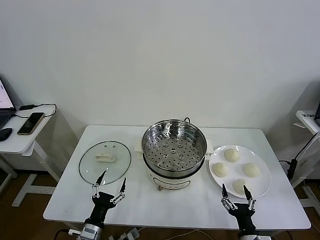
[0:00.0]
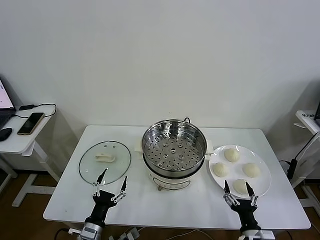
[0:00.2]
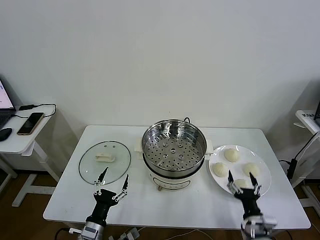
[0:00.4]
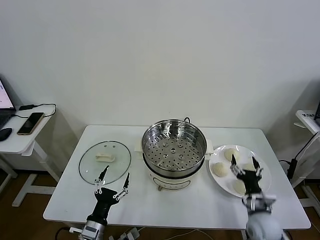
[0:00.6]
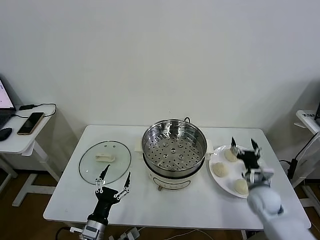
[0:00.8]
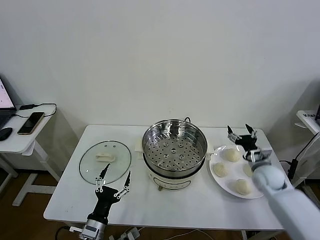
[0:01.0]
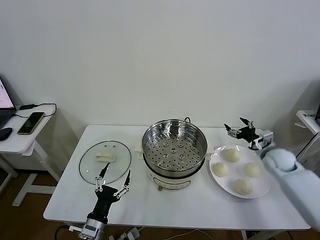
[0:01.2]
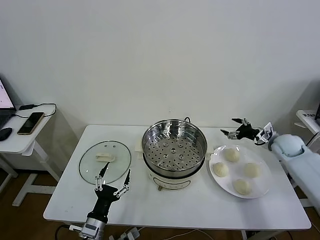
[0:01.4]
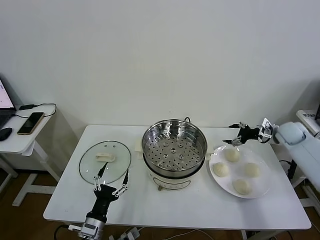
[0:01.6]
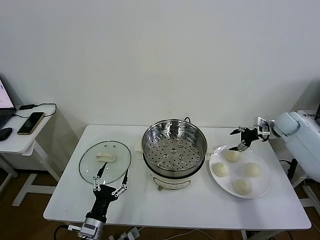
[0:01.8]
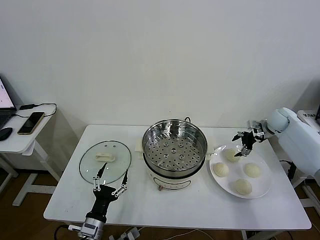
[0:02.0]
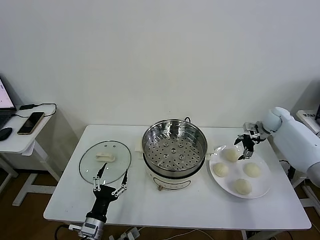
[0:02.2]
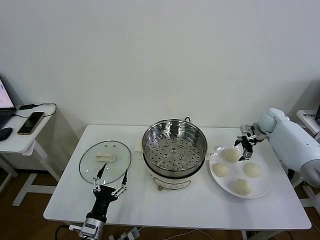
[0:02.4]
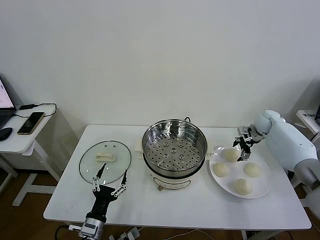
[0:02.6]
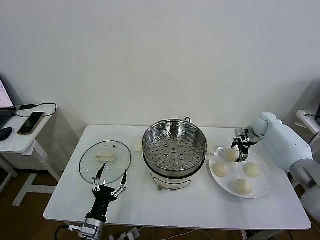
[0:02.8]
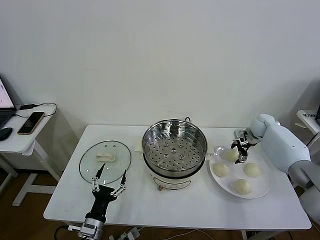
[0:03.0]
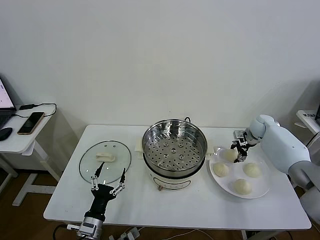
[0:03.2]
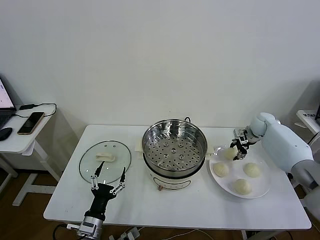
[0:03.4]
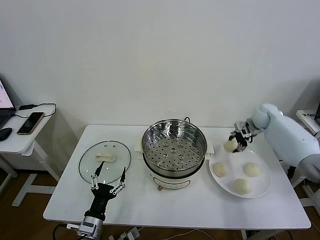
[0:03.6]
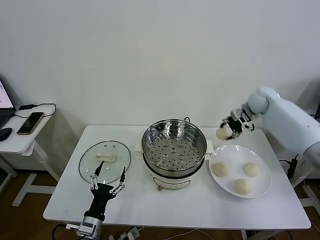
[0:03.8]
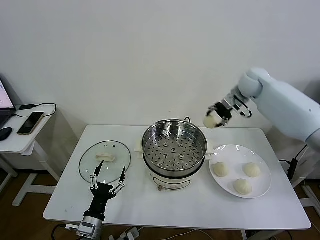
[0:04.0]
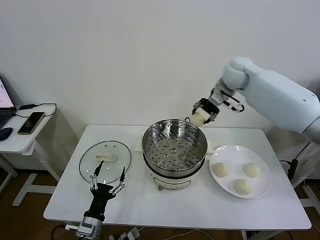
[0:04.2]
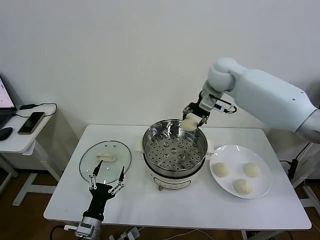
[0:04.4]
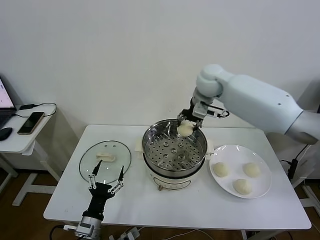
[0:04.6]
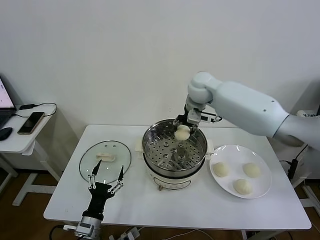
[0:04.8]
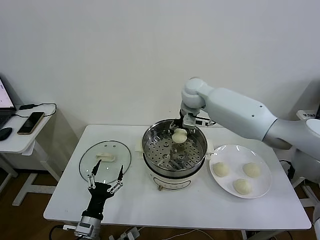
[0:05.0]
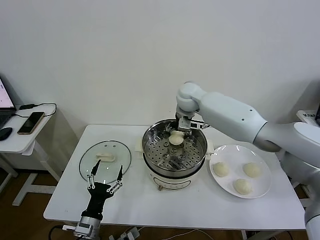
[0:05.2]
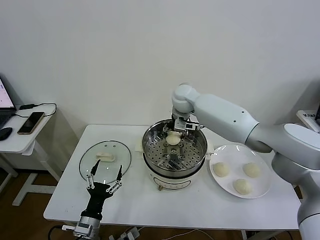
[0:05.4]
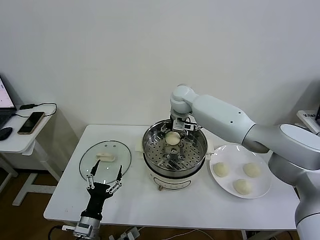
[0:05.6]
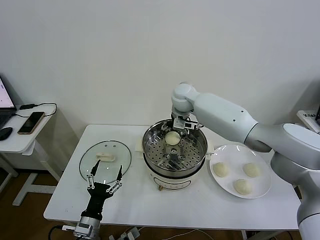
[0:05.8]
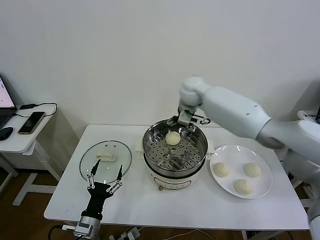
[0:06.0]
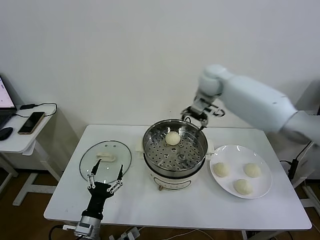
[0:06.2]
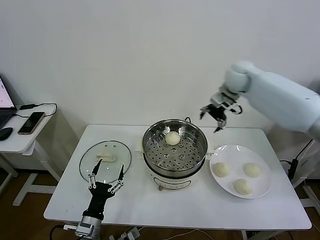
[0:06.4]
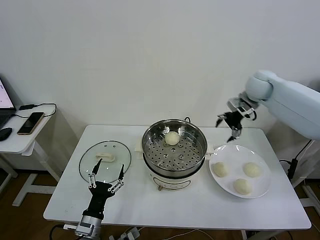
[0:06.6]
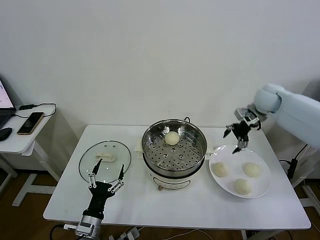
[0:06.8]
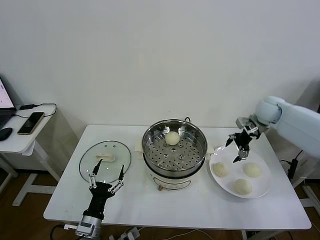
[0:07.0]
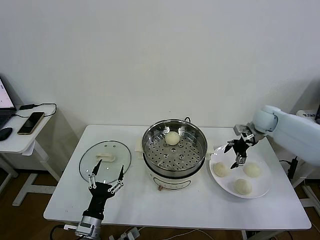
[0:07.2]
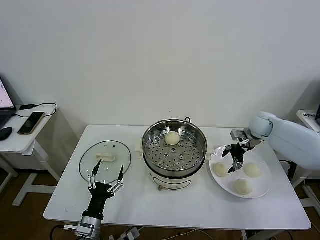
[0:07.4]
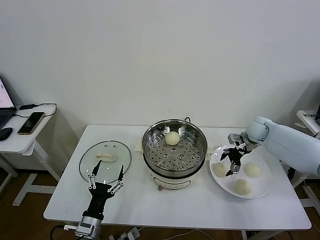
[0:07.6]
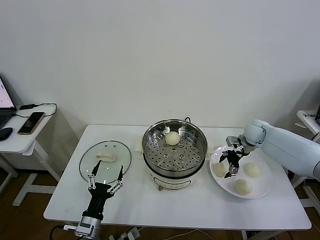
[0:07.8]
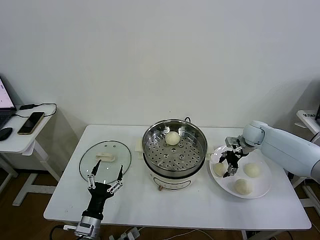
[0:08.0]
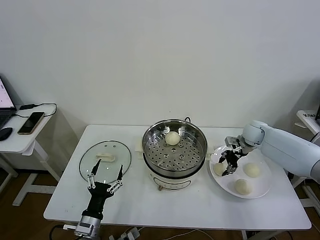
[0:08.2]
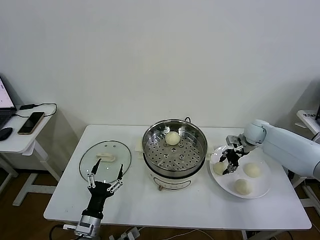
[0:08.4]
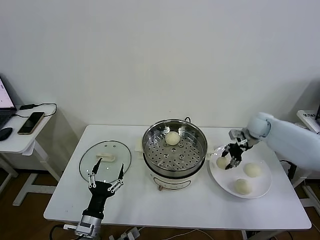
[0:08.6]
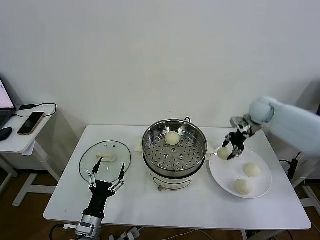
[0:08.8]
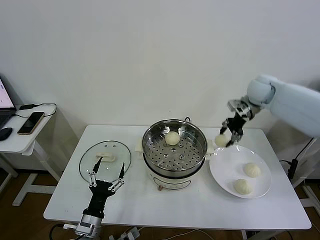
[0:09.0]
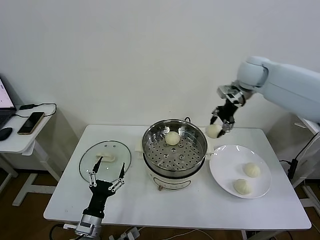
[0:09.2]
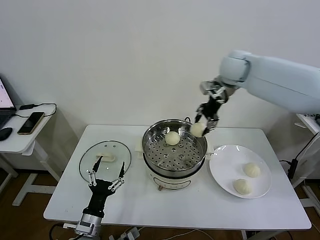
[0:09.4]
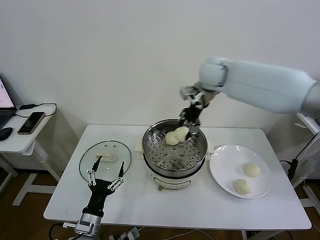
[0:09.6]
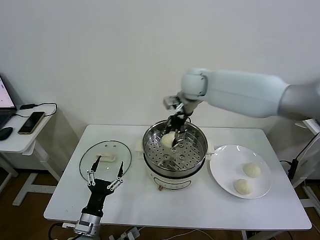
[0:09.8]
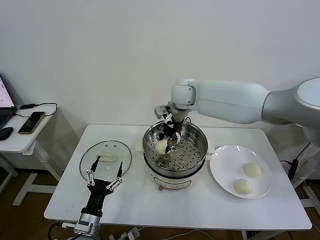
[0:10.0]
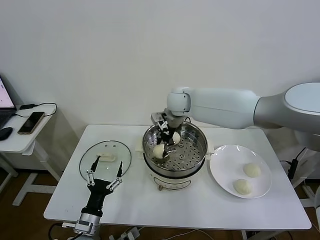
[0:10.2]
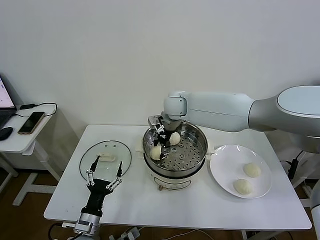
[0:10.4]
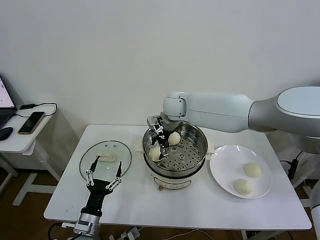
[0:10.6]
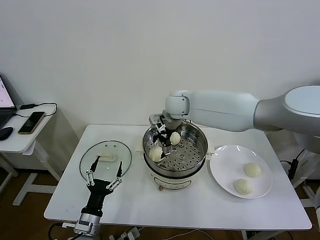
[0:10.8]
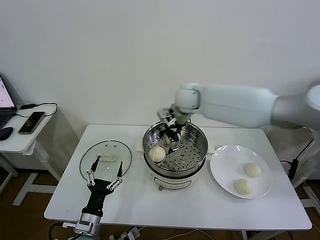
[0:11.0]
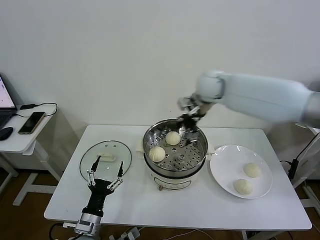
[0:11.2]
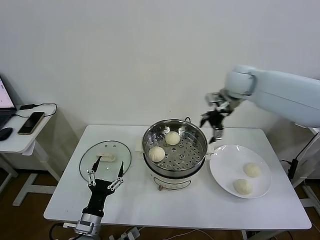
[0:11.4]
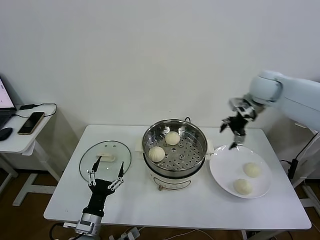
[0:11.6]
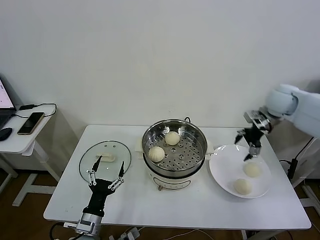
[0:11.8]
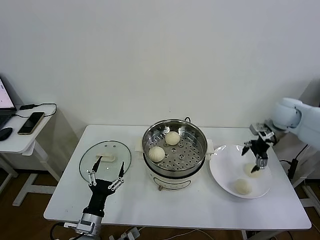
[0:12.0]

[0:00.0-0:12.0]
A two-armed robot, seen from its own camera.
Task of the whole recording: take steamed baozi put them in steamer then cover it.
Step, 0:00.0 to 0:03.2: Grasp the baozi in the plate with right gripper.
Step, 0:03.4 to 0:05.8: Place the baozi on the steamer with right gripper.
Step, 0:06.0 to 0:08.2: Grasp the baozi in the plate with right gripper.
Step, 0:08.4 to 0:10.6: Place the baozi on the steamer with right gripper.
0:01.6 to 0:03.0: The right gripper travels to the left, downward and forward by about 10 cm.
0:03.0 to 0:04.4: The right gripper shifts some 35 cm to the left and upward, and closes.
0:04.4 to 0:06.0: The right gripper opens its fingers.
0:06.0 to 0:07.6: The right gripper travels to the right and downward by some 30 cm.
0:07.6 to 0:09.0: The right gripper travels upward by about 20 cm, and closes its fingers.
0:09.0 to 0:10.4: The right gripper moves to the left, roughly 25 cm.
0:10.4 to 0:12.0: The right gripper travels to the right by some 35 cm, and opens its fingers.

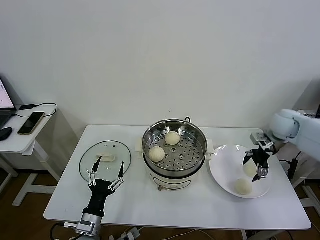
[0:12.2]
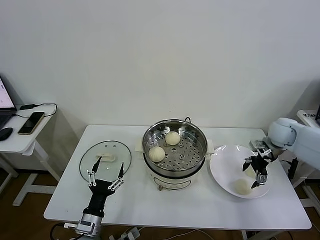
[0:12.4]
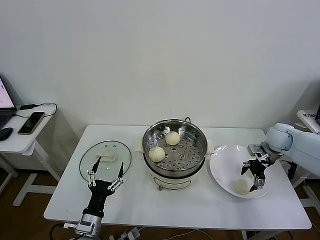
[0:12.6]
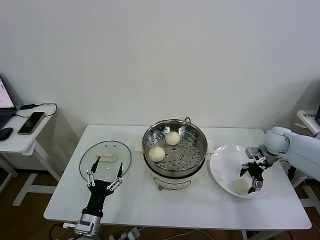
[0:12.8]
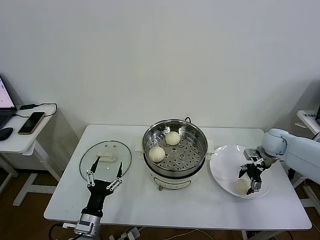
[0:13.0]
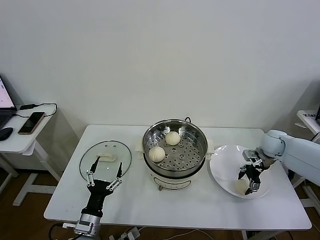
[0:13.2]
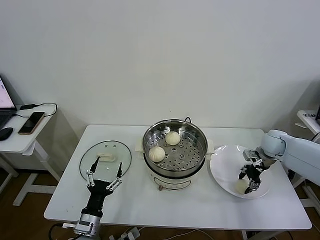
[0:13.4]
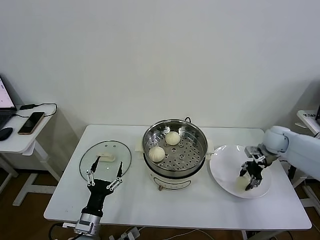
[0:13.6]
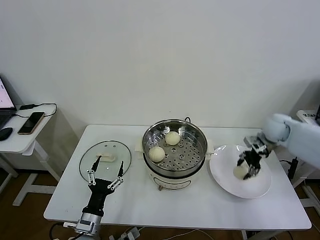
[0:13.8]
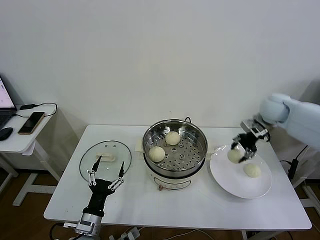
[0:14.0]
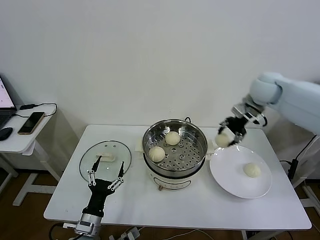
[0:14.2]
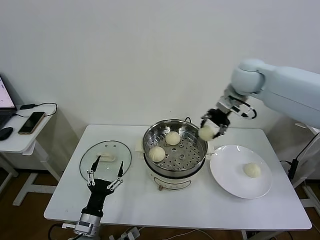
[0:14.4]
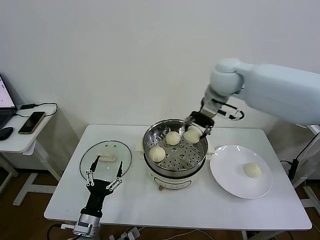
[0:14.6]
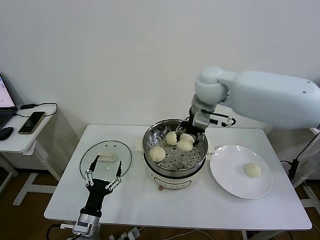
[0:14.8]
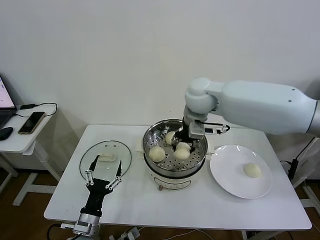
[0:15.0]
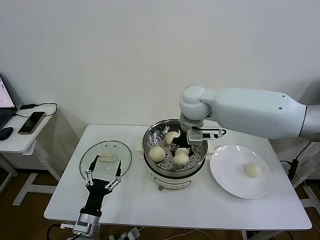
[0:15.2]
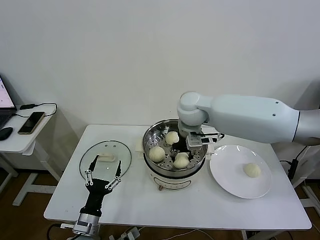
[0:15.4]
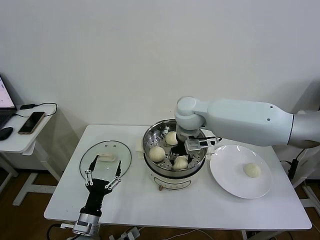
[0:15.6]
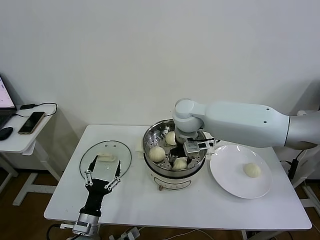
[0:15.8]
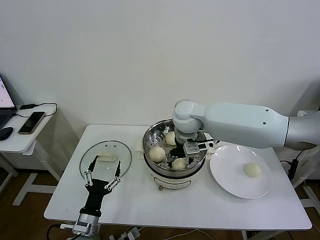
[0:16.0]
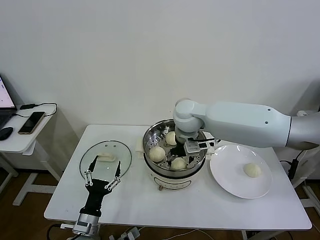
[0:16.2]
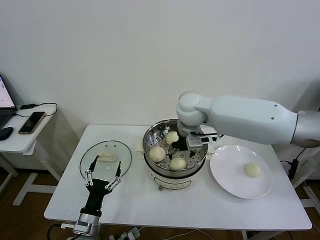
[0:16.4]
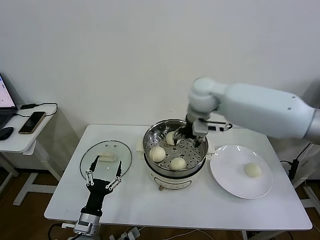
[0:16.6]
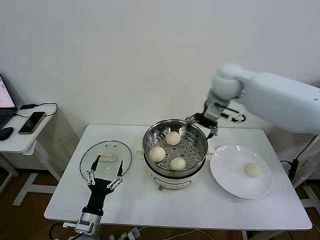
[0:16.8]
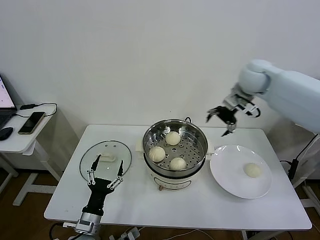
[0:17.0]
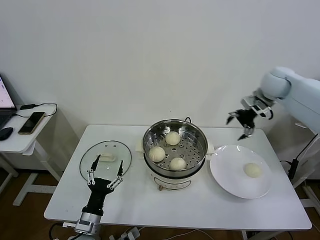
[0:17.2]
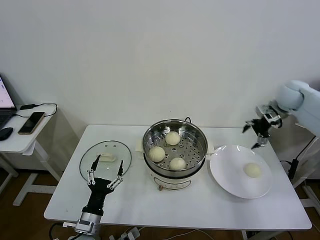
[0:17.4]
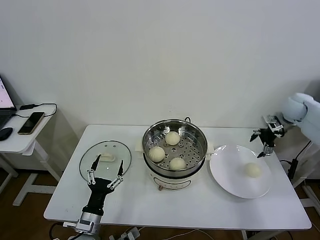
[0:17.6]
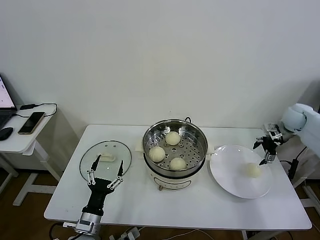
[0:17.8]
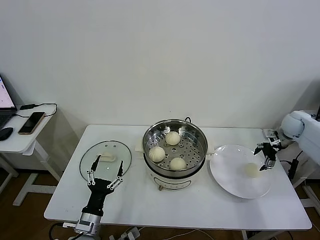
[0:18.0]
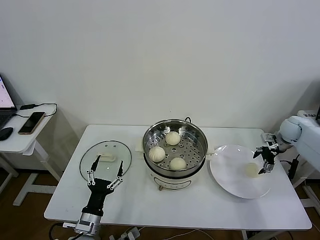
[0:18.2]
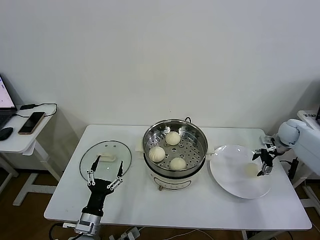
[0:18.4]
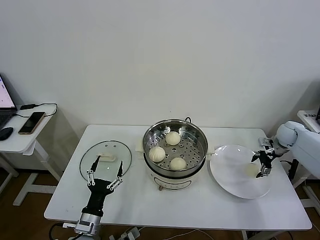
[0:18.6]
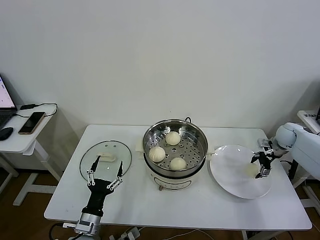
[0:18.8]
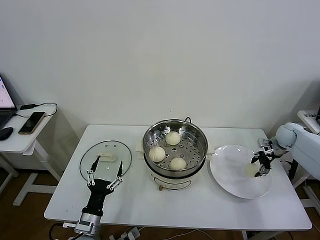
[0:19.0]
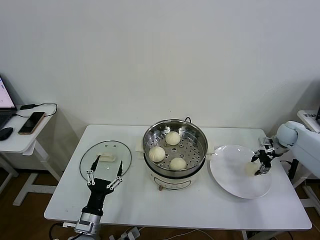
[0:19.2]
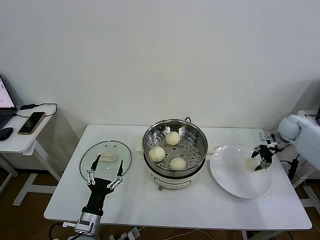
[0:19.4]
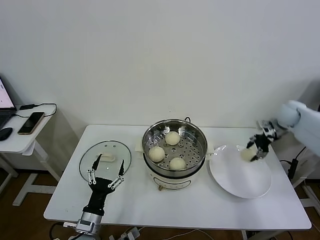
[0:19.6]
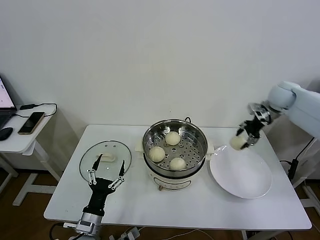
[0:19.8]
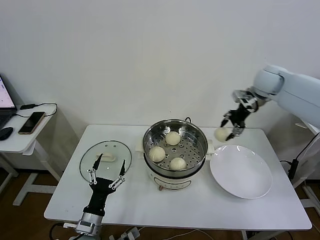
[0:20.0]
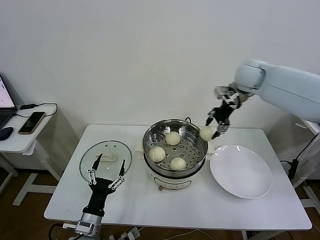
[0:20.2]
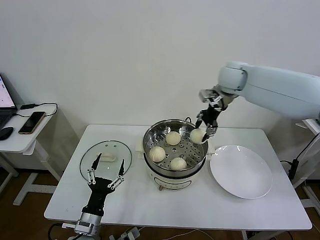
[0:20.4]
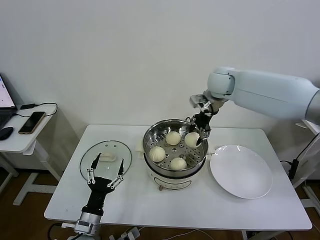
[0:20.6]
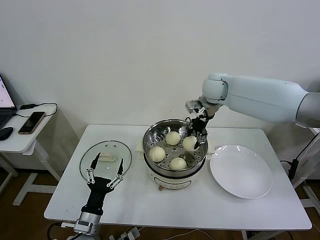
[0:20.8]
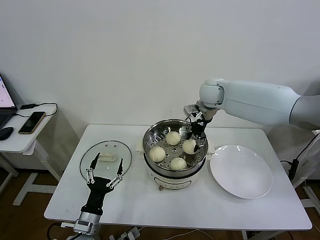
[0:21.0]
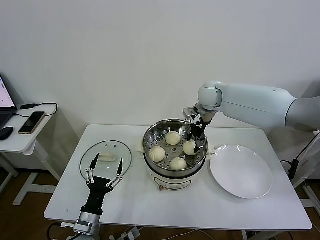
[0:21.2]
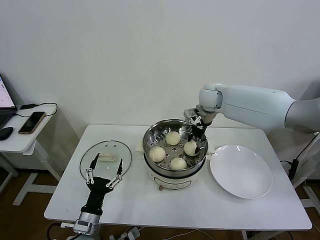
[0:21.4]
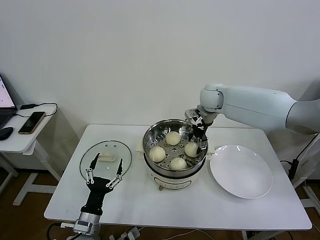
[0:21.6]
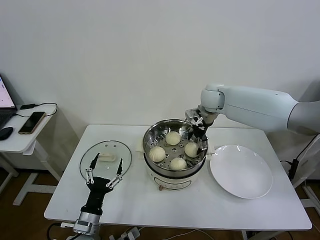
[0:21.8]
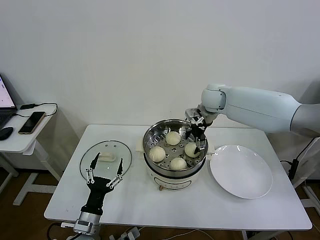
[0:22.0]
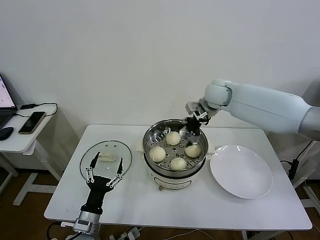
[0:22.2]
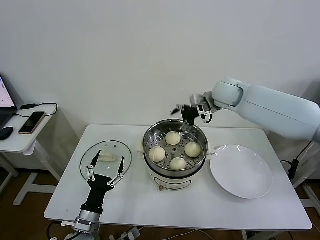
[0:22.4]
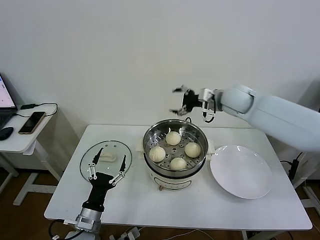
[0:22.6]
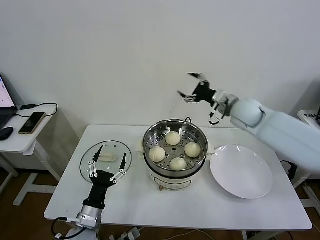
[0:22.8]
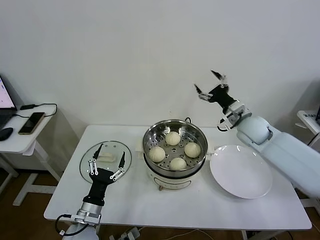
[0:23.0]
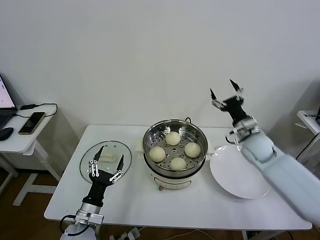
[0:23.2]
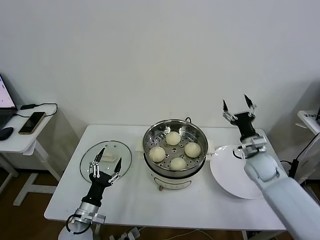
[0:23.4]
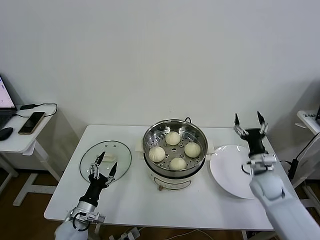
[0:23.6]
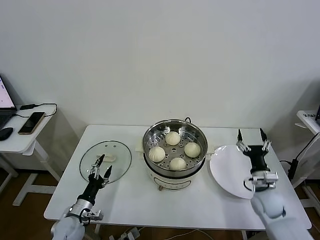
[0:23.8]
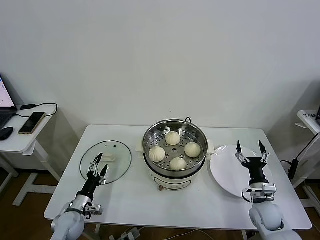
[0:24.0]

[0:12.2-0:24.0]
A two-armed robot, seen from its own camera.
Task of the whole recording: take steamed baozi put them in steamer then cover it.
Step, 0:13.6 to 0:16.0: Place the baozi on the steamer with right gripper.
Step, 0:16.2 to 0:19.0: Grasp the baozi in the plate with right gripper.
Step, 0:19.2 to 0:21.8: Place the baozi on the steamer with right gripper.
0:12.2 to 0:13.6: The right gripper closes its fingers.
0:13.6 to 0:15.2: The right gripper goes approximately 35 cm to the left and upward.
0:15.2 to 0:16.6: The right gripper ends up about 5 cm from where it was, and opens.
0:16.6 to 0:18.2: The right gripper goes about 40 cm to the right and downward.
0:18.2 to 0:19.6: The right gripper goes some 5 cm upward, and closes its fingers.
0:19.6 to 0:21.0: The right gripper moves to the left, some 30 cm.
0:21.0 to 0:22.6: The right gripper goes about 10 cm to the right and backward, and opens its fingers.
0:22.6 to 0:24.0: The right gripper goes approximately 40 cm downward, backward and to the right, while the left gripper is displaced to the left, downward and forward by about 15 cm.
